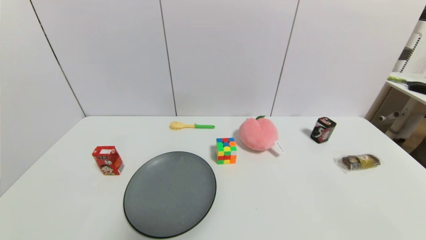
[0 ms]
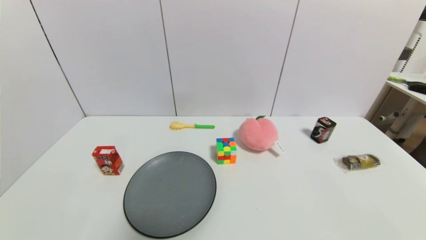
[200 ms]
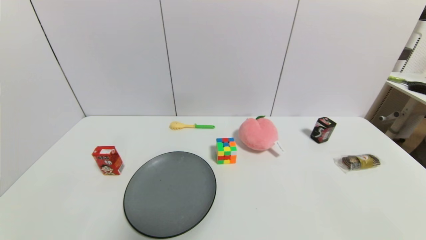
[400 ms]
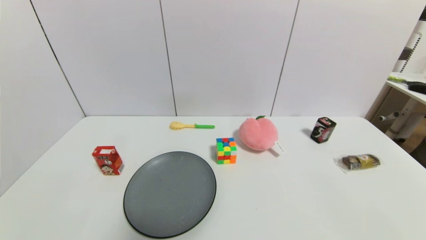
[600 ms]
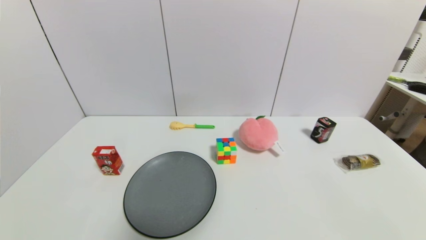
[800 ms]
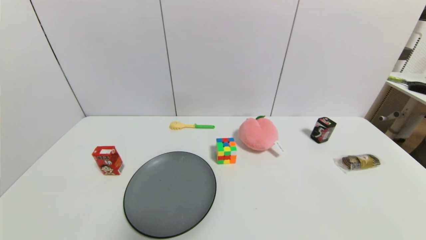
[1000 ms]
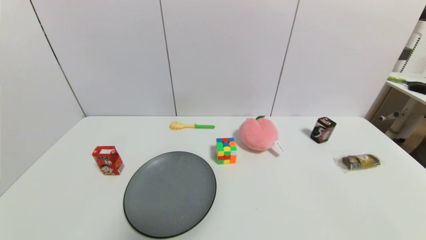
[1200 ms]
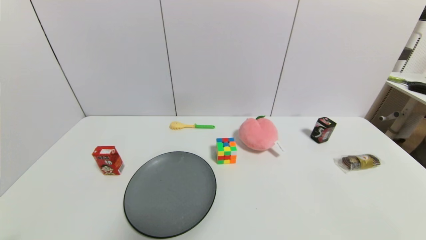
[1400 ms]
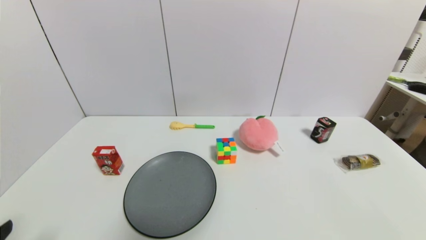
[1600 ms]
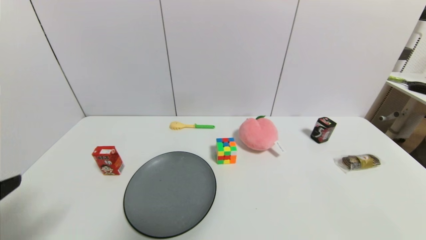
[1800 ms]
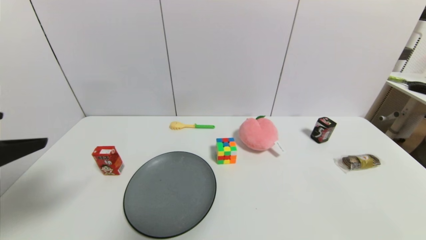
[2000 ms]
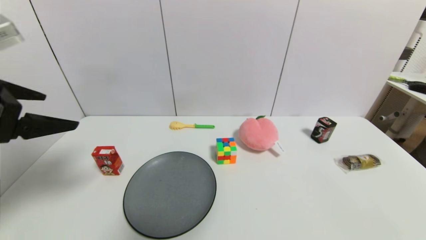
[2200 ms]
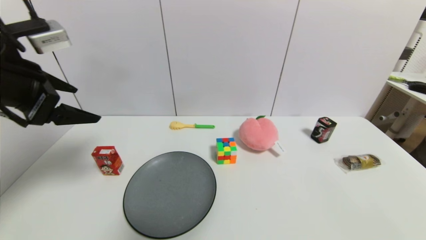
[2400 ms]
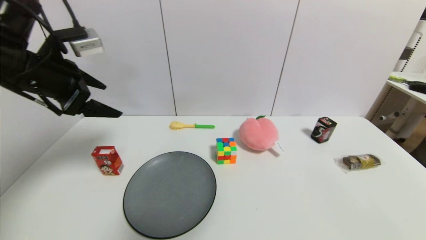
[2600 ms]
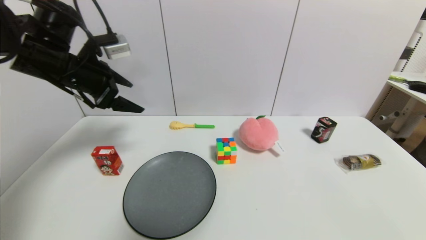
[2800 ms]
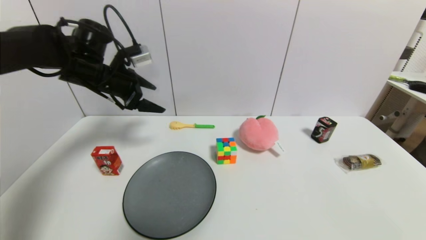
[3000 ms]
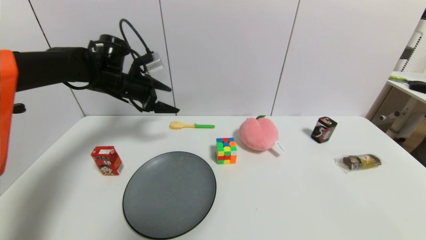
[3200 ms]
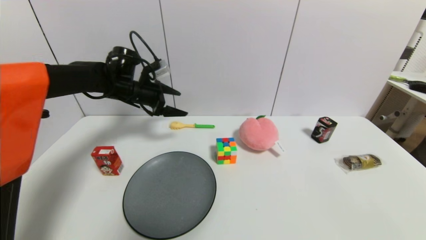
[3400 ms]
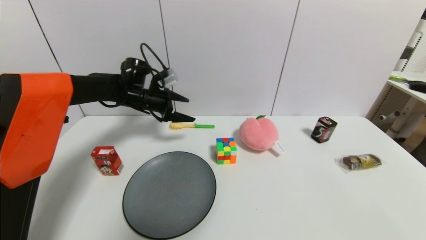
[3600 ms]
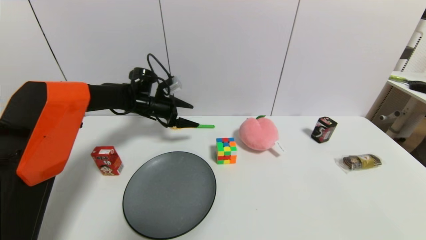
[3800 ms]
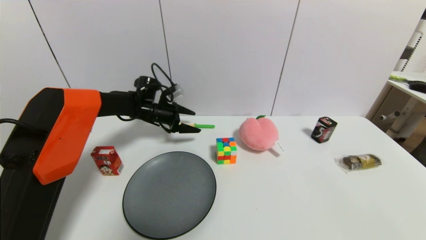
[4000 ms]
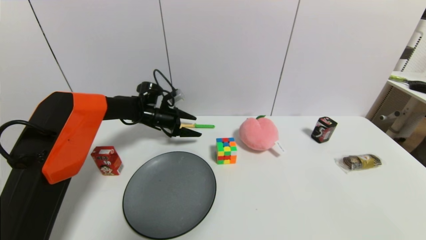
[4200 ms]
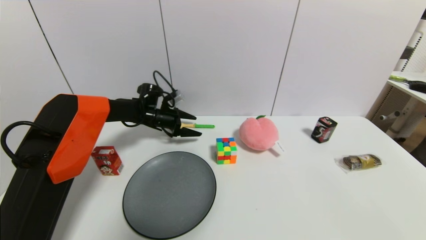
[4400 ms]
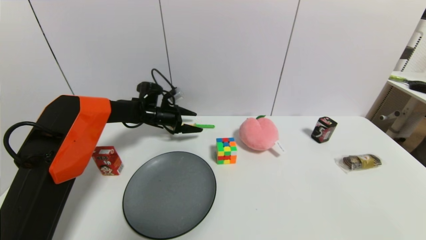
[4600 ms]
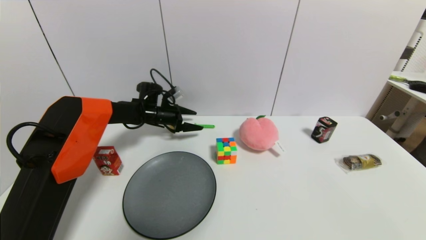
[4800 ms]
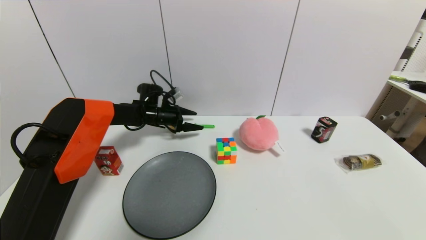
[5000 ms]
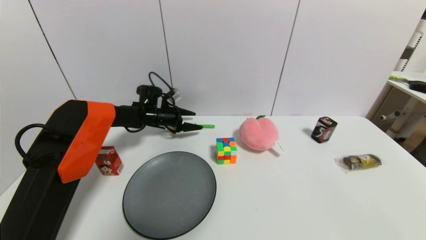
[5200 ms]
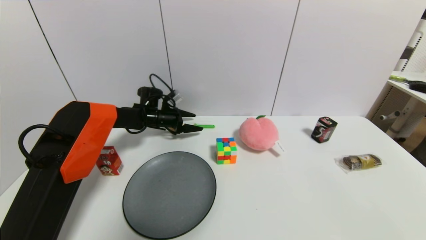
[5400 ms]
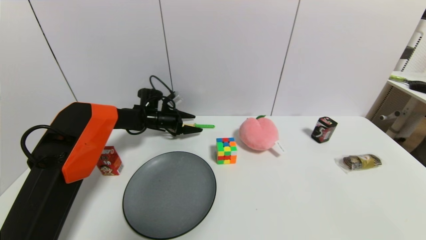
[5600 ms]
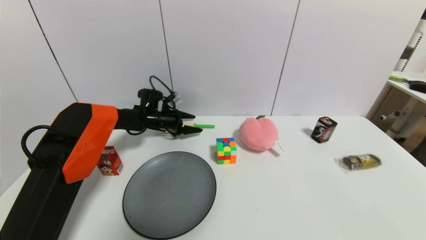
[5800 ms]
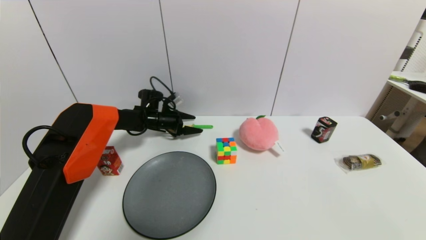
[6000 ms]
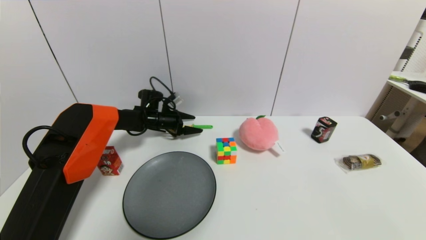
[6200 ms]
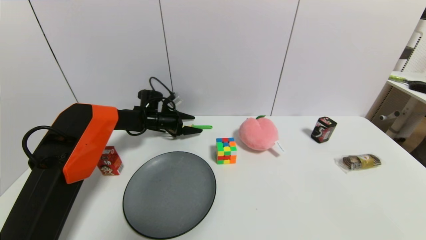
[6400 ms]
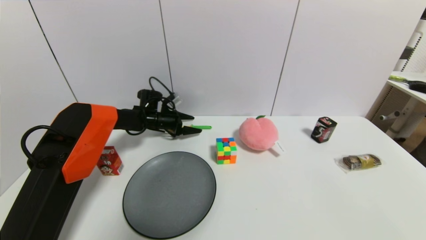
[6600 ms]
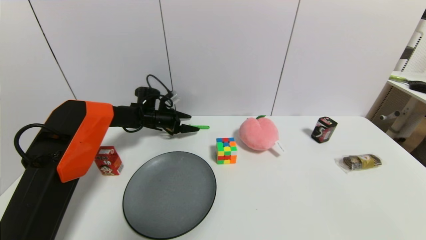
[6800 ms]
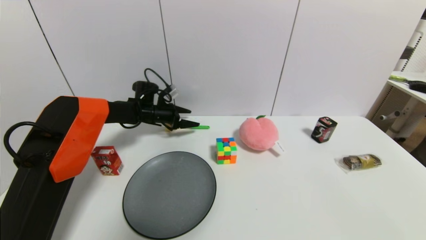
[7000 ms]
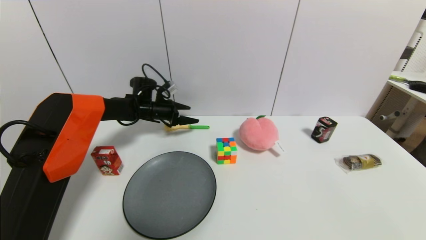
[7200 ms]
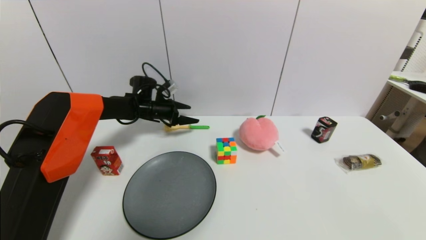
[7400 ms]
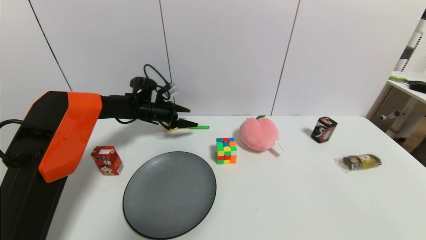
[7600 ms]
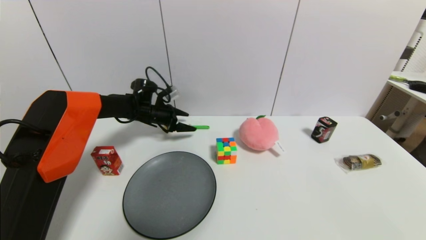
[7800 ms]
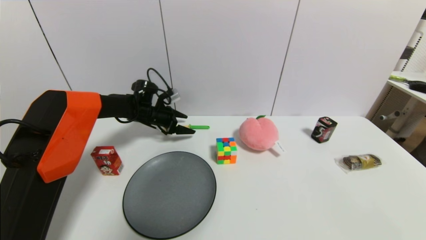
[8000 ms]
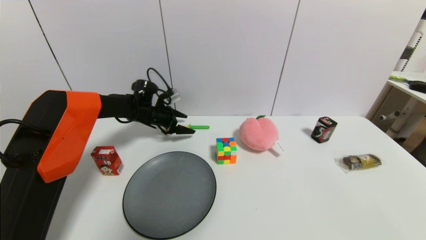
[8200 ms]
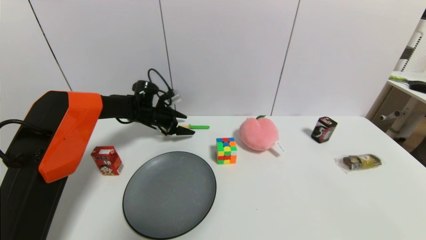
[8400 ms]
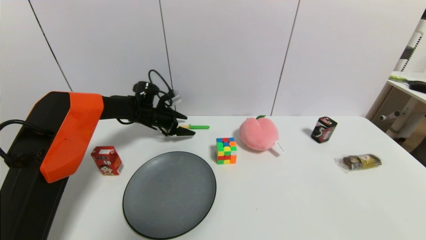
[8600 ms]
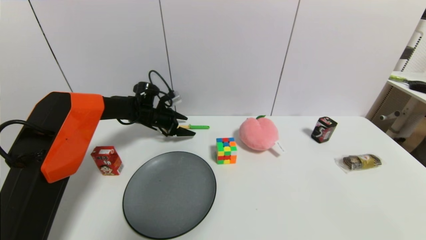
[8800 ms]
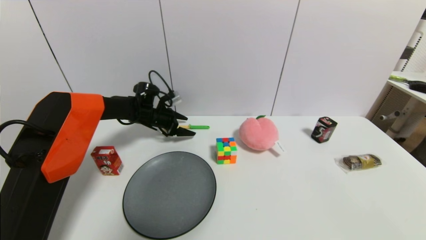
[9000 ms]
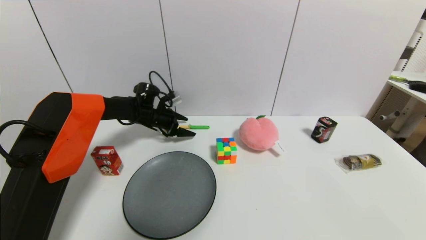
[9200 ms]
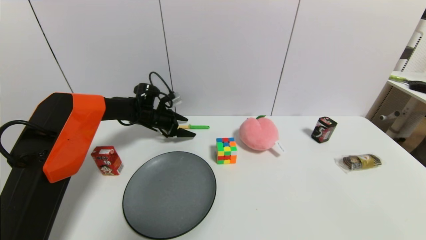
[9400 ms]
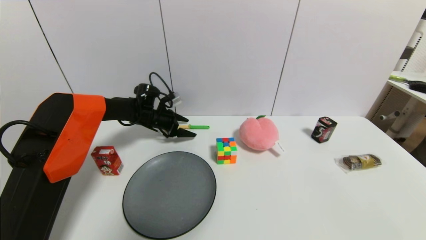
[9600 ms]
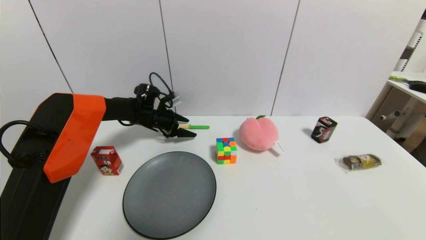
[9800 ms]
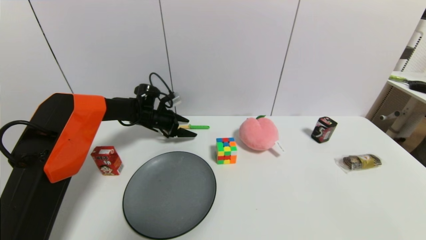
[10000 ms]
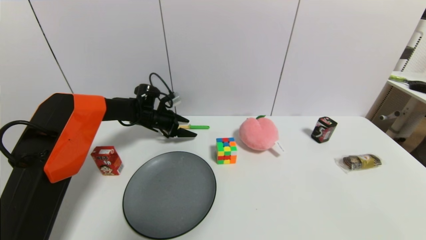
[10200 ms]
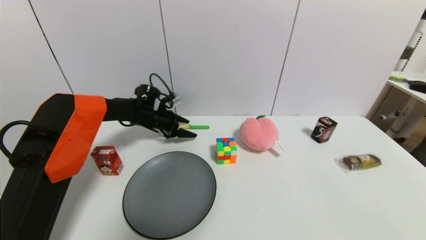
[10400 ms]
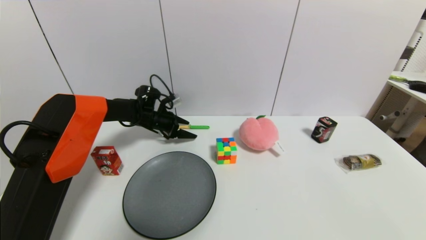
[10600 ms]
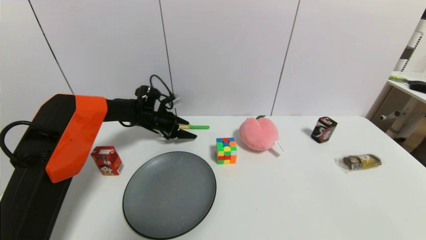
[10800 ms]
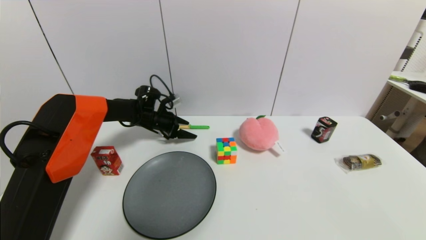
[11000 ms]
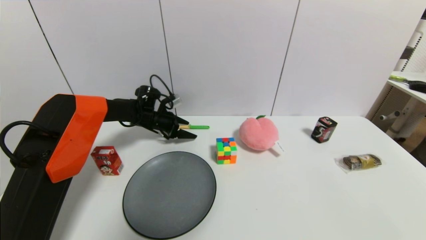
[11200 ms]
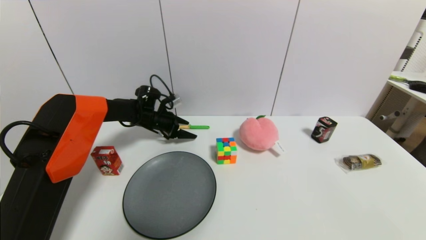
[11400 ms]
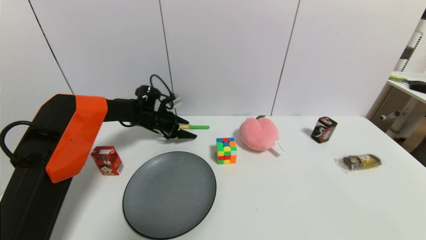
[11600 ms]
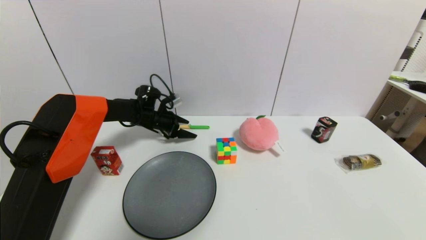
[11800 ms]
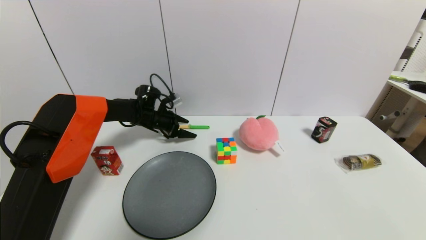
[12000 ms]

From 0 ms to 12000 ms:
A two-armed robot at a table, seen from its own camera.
Task of the whole recording: use a gripper to pick the target object and place on the gray plate.
From 1600 ms to 3000 ms: The left gripper travels forward by roughly 40 cm.
From 3000 ms to 4400 ms: The left gripper is displaced downward and forward by roughly 20 cm.
From 4400 ms to 6000 ms: The grippers move only a little.
From 6000 ms to 7600 ms: The left gripper moves about 5 cm.
From 7600 ms to 9000 ms: The grippers make only small movements.
From 9000 ms to 10400 ms: Both grippers stay about where they are.
From 10400 ms to 12000 ms: Both grippers stay about where they are.

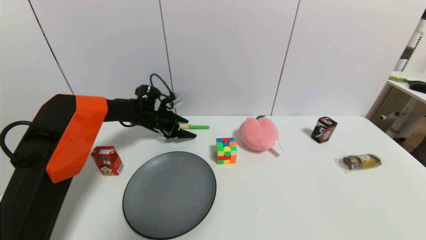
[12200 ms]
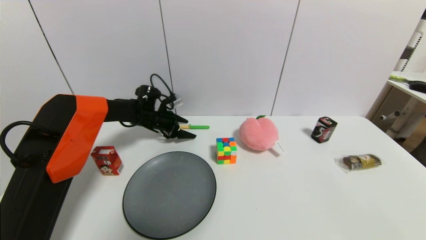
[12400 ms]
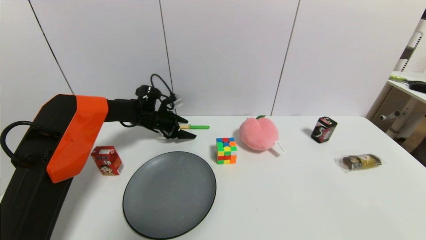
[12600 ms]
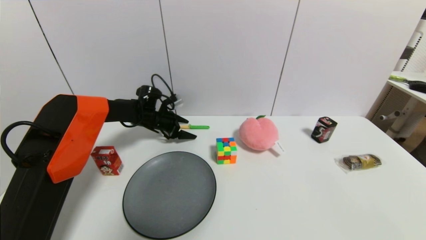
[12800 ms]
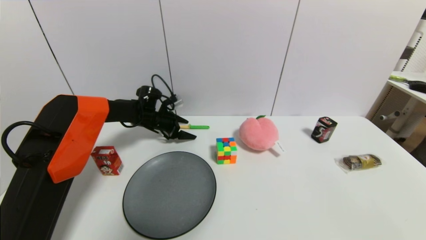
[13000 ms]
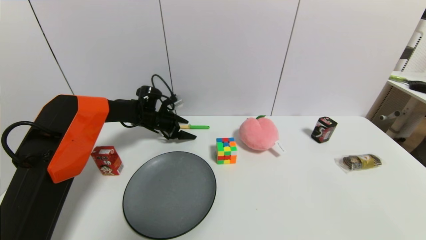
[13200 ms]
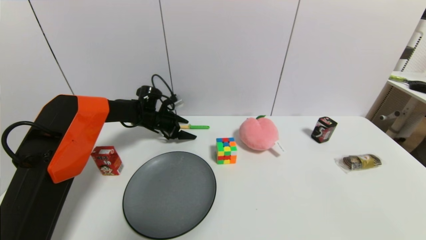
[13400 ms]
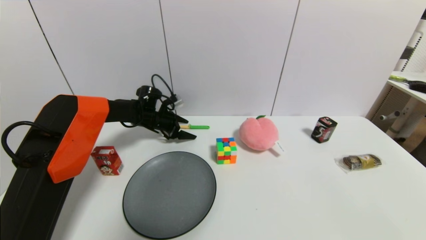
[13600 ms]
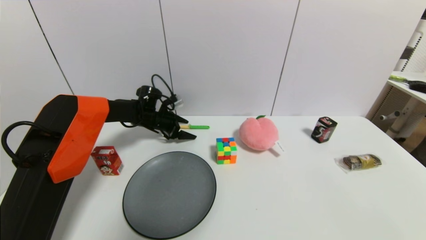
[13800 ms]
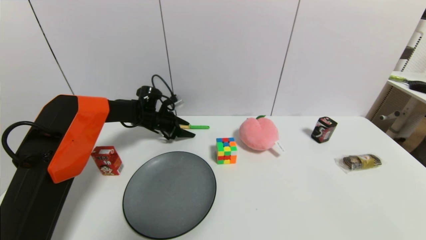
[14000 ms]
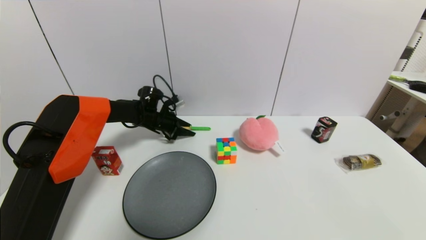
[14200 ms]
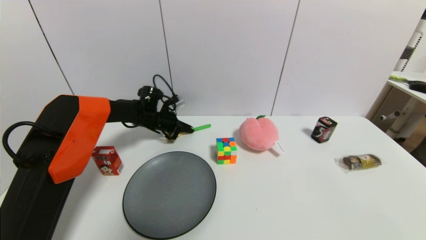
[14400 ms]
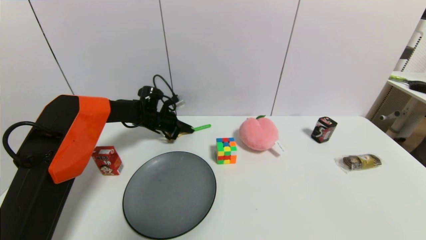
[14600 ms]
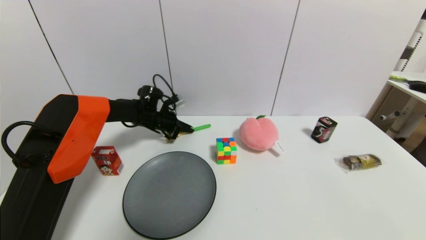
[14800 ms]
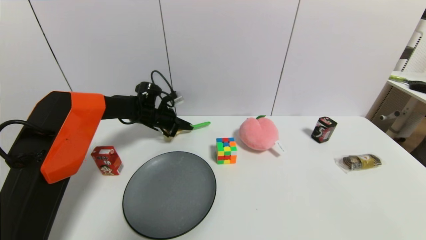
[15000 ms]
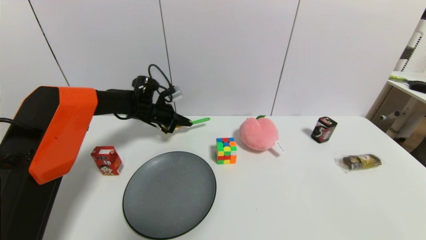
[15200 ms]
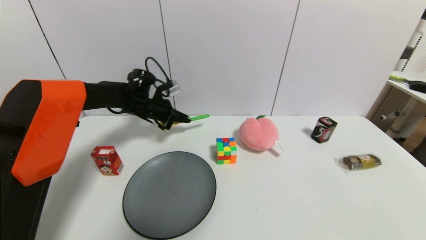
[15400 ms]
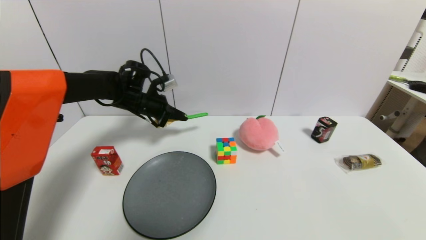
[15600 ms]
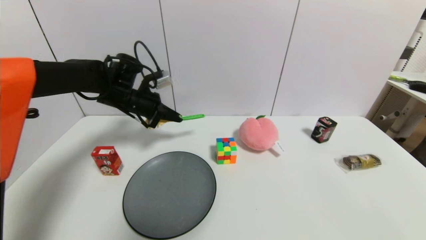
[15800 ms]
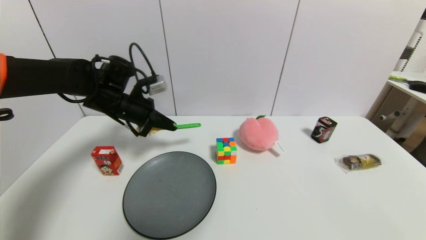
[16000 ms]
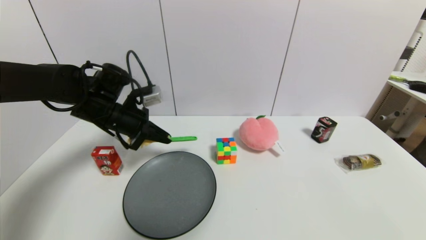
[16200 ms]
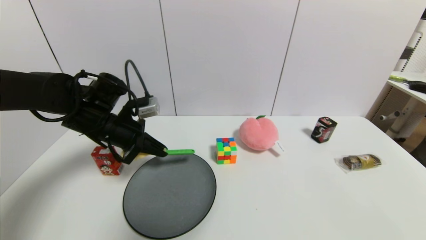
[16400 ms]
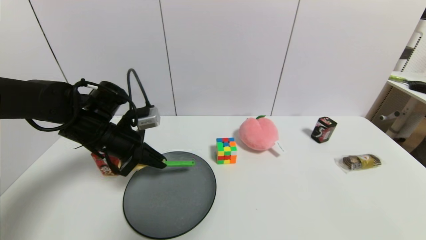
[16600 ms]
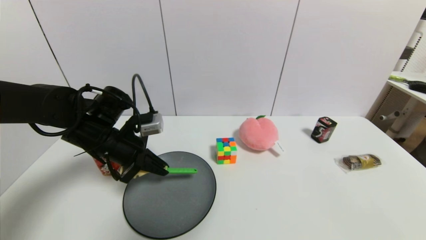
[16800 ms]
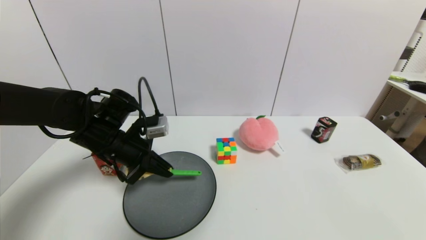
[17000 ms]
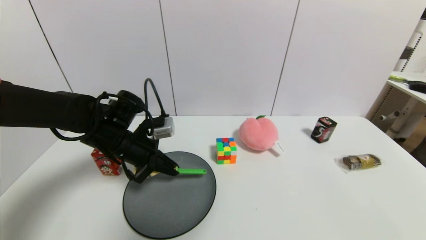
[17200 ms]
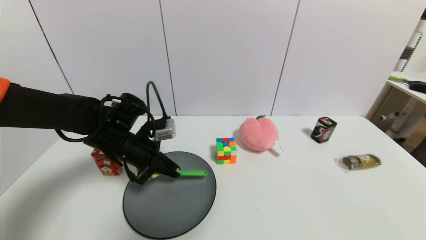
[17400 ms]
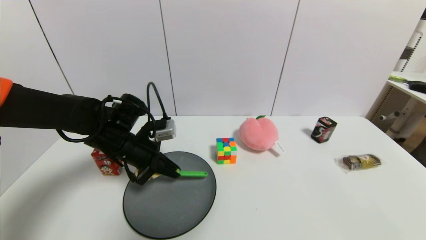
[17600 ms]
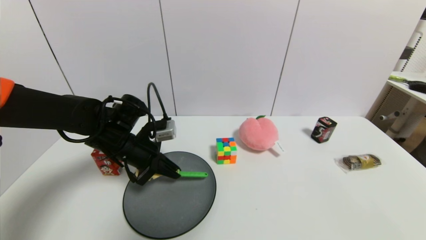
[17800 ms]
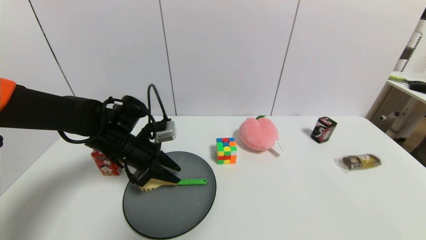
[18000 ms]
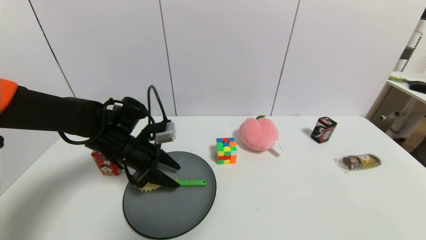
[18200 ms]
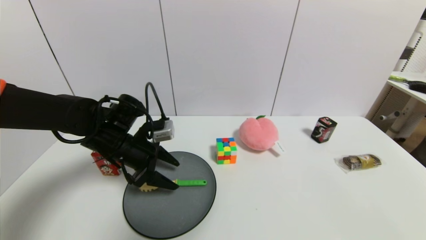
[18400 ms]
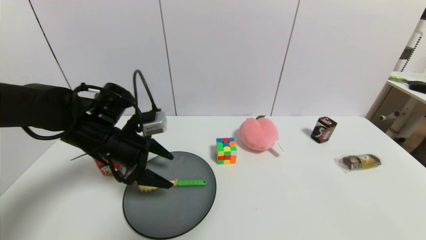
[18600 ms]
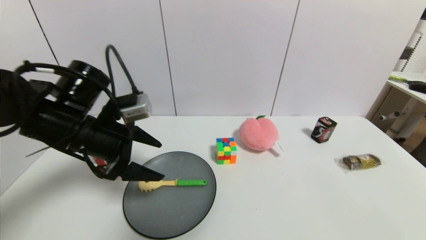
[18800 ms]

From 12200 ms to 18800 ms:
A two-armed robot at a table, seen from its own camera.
Task of the whole recording: use a gripper to pick the target object and place on the gray plate.
Step, from 12200 ms to 14400 ms: Grasp the back scratcher with the left gripper.
Step, from 14600 ms to 18400 ms: Place the back scratcher on the gray plate with the left gripper.
From 12200 ms to 13800 ms: Neither gripper changes place.
From 13800 ms to 15400 ms: The left gripper shifts some 5 cm upward, and closes.
From 15400 ms to 17200 ms: The left gripper moves backward, about 15 cm.
From 17200 ms to 18800 ms: The left gripper travels upward and backward by about 10 cm, and opens its fingers.
